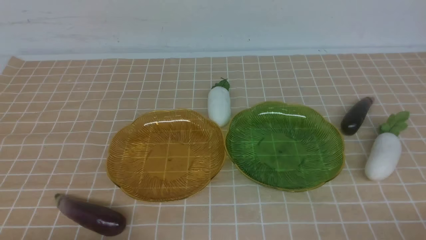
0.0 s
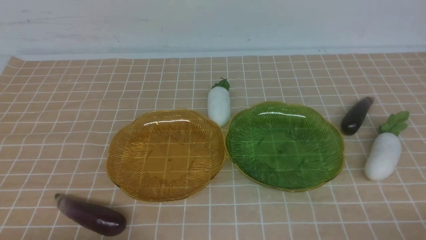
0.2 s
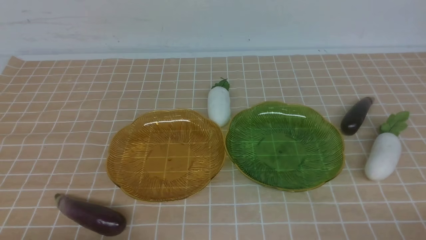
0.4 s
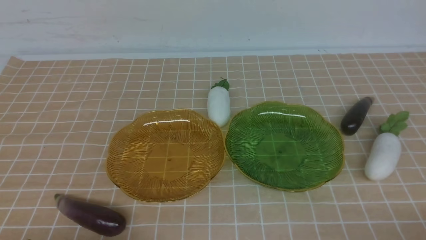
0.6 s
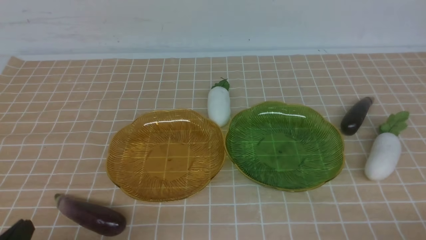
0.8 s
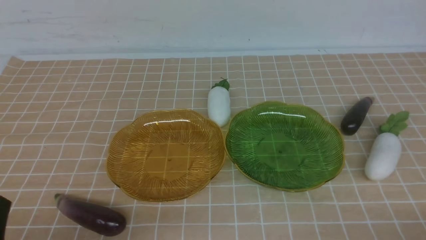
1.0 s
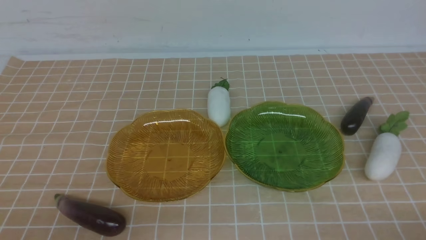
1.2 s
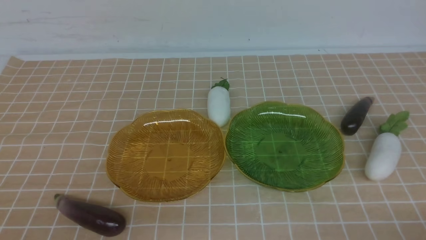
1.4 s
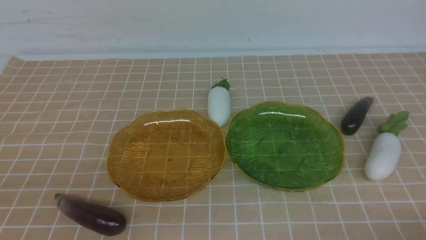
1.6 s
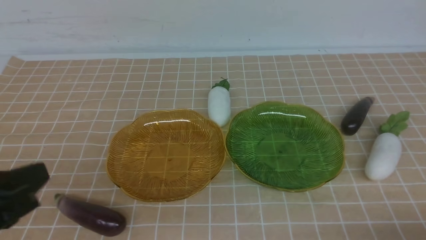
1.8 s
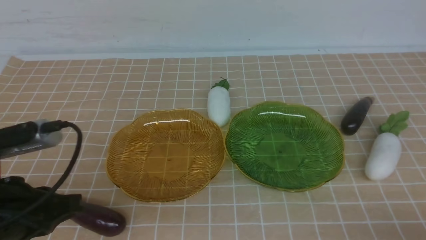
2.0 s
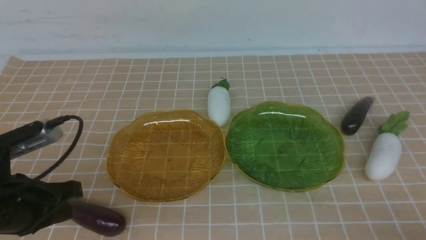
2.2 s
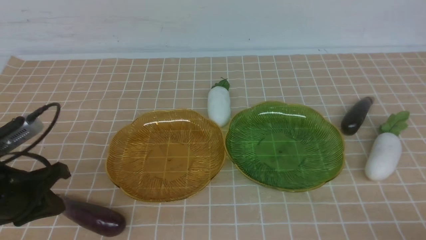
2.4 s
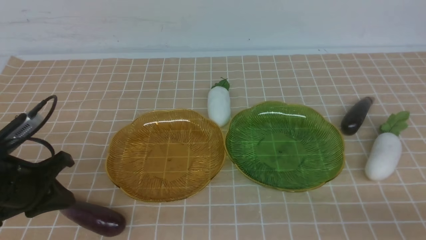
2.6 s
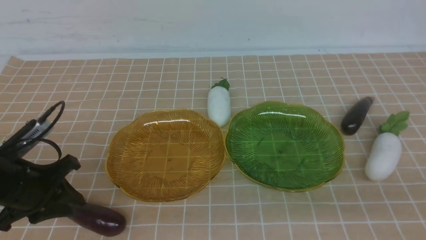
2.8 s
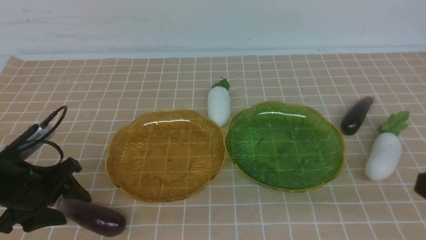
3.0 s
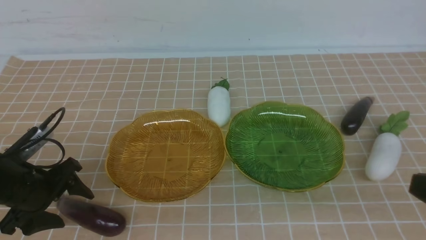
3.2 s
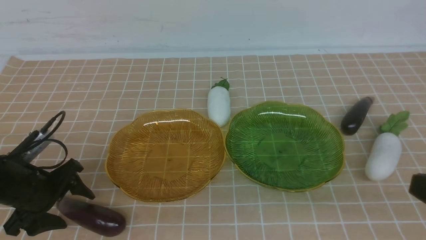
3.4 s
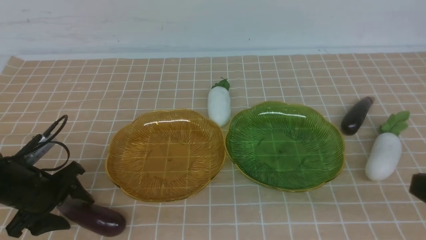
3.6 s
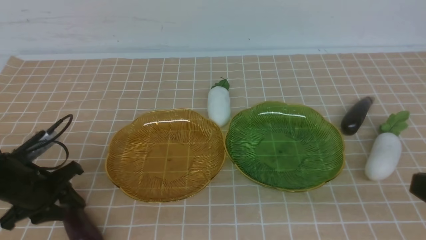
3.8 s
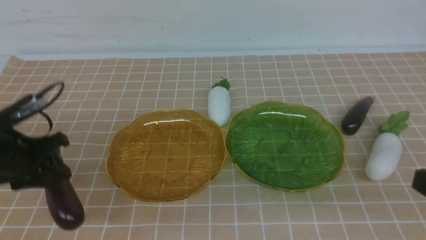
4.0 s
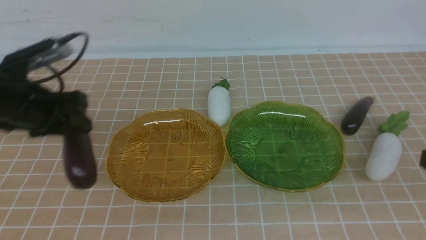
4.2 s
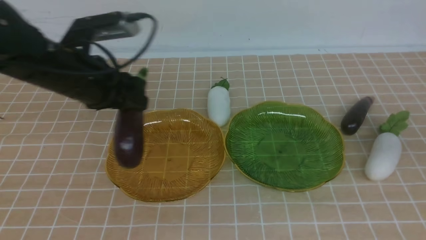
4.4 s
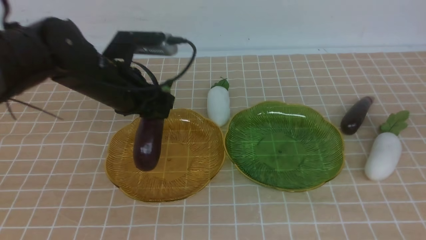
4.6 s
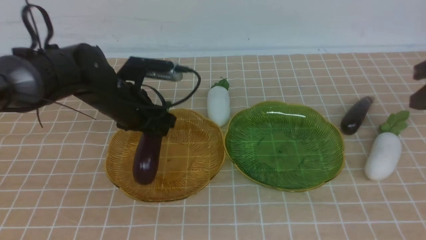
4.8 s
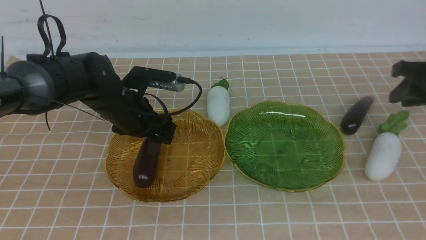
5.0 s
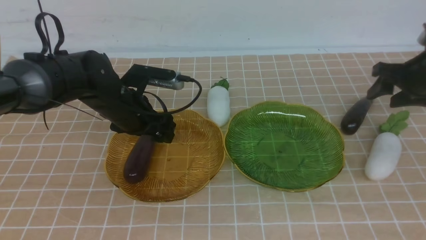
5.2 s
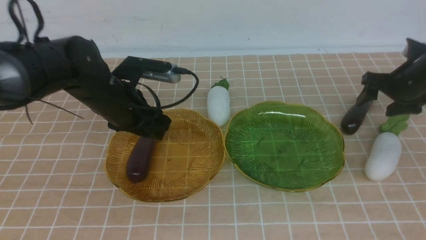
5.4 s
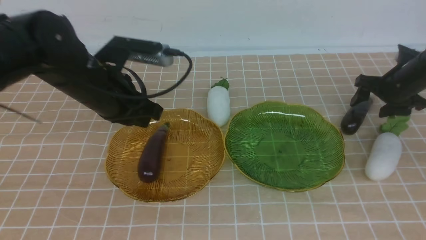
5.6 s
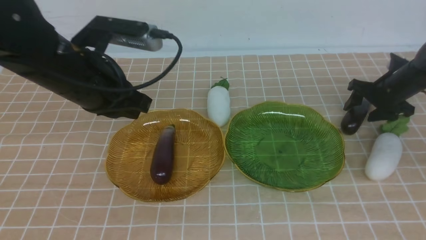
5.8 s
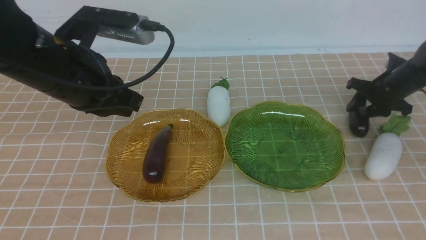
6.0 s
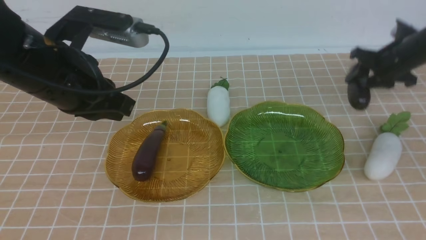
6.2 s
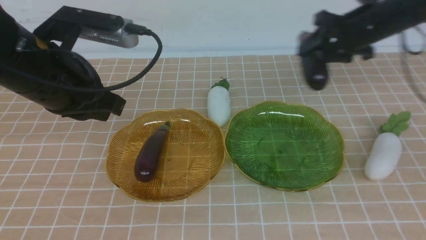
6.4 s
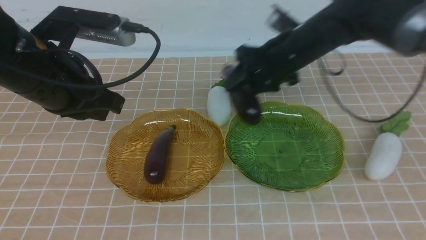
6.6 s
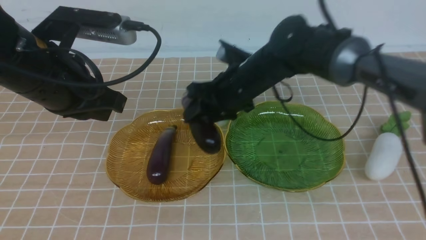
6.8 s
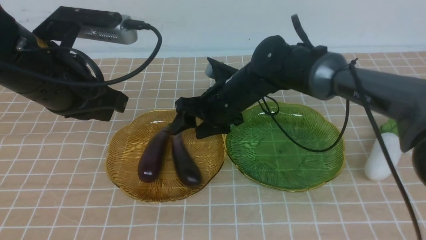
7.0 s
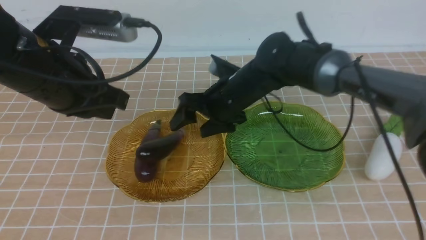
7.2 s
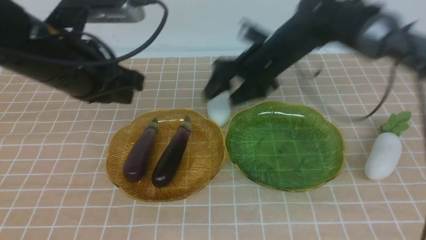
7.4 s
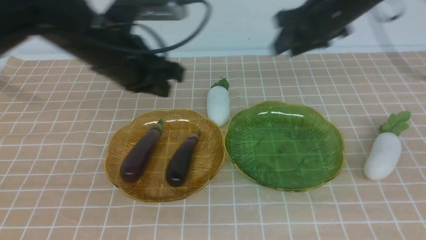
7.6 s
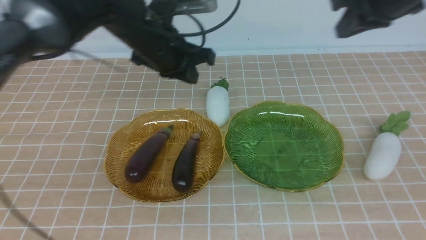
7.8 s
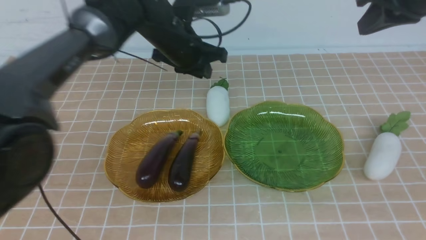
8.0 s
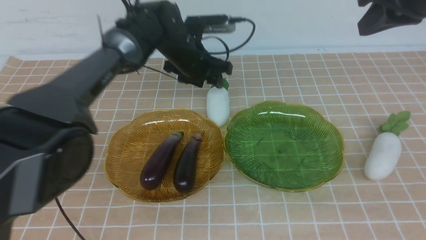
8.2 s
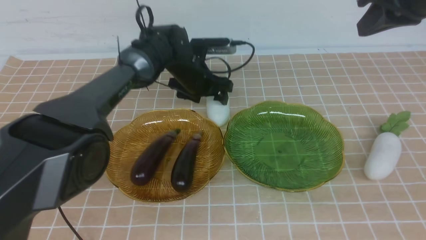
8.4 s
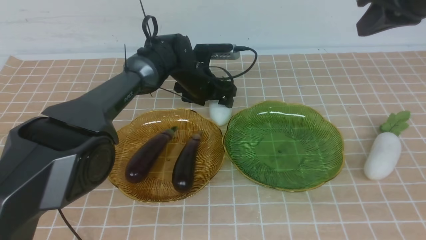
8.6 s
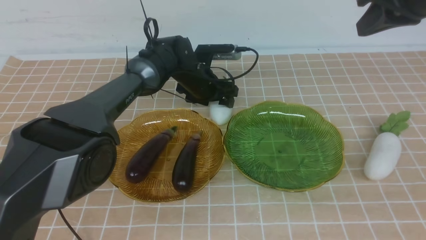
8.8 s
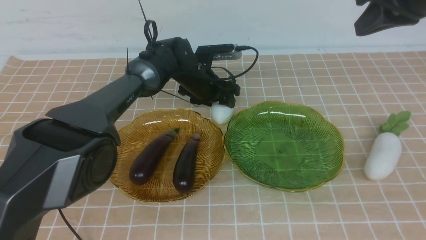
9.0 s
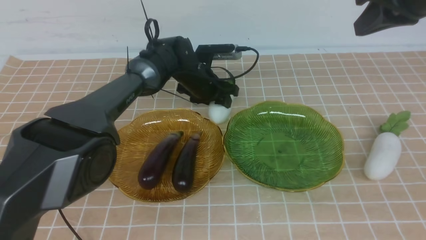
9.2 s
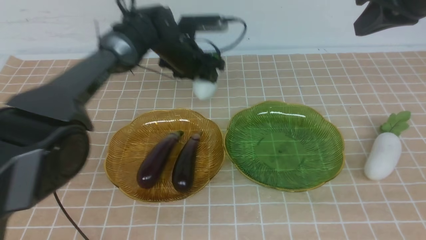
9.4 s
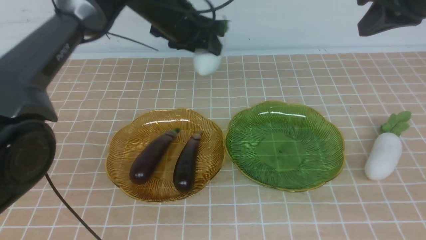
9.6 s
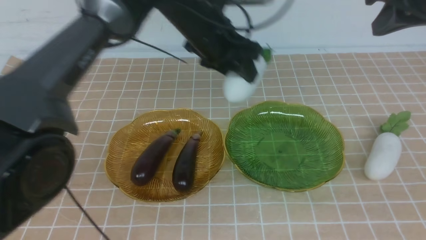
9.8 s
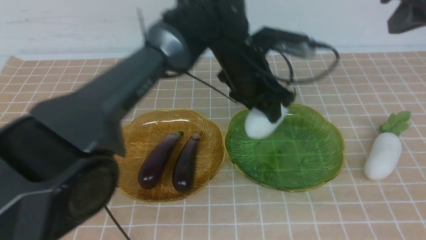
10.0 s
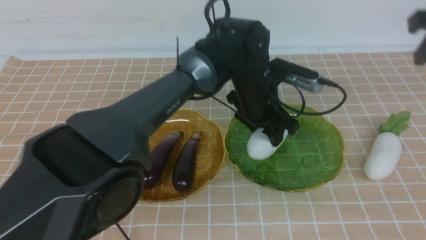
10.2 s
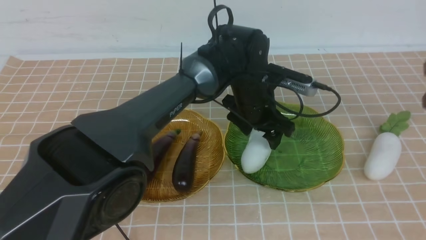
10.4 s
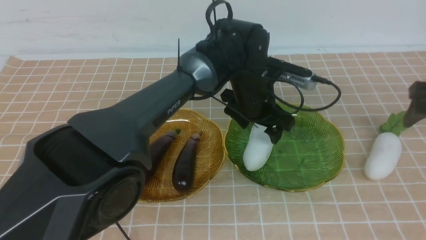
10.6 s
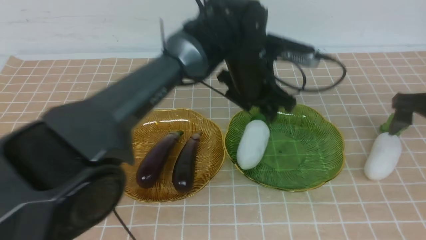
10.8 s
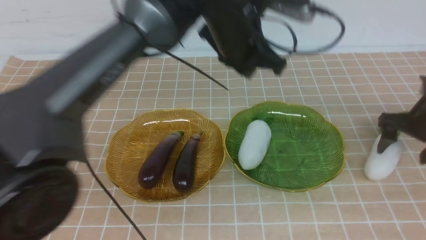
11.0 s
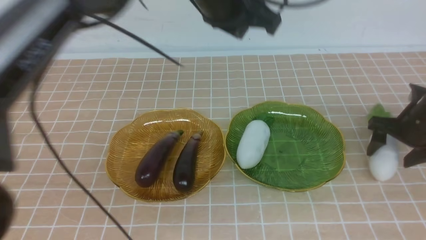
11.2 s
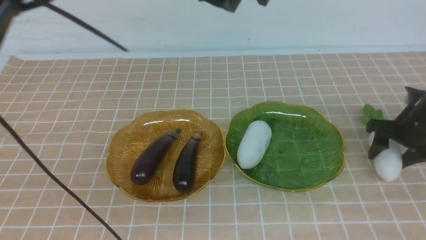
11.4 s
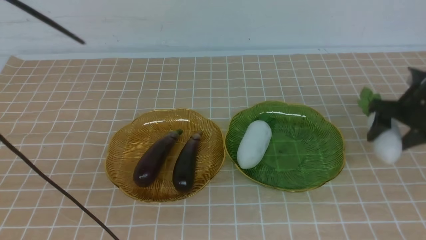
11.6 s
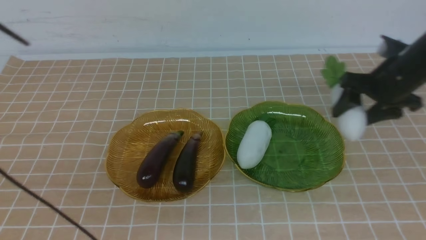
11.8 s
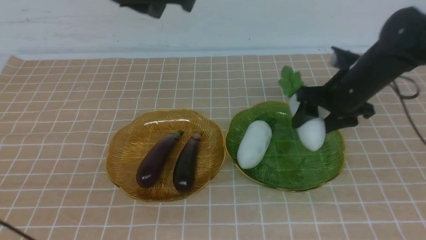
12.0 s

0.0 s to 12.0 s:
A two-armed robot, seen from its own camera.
Step, 0.0 to 5.0 s: use the left arm to grab an eggplant and put it into the left plate.
Step, 5.2 to 7.0 s: use the right arm to grab an eggplant and put it into the left plate.
Step, 7.2 to 10.4 s: use the left arm to grab a radish and put it into the right plate.
1.6 to 3.0 s: The left gripper travels forward and downward by roughly 20 cm, and opens its fingers.
3.0 to 4.4 s: The right gripper heads forward, covering some 20 cm; the left gripper goes roughly 20 cm to the right, forward and upward, and closes its fingers.
4.4 to 6.0 s: The left gripper moves upward and backward, approximately 15 cm, and closes its fingers. The right gripper moves forward and downward, roughly 25 cm, and opens its fingers.
6.0 to 7.6 s: The left gripper travels forward by some 5 cm, while the right gripper goes about 20 cm to the left, upward and backward, and opens, then closes once more.
7.6 to 9.0 s: The right gripper shifts roughly 15 cm to the right, upward and backward, and closes. The left gripper shifts approximately 25 cm forward, downward and to the right, and opens its fingers.
9.0 to 10.4 s: The right gripper moves downward and to the right, roughly 20 cm, and opens; the left gripper is displaced backward, to the right and upward by approximately 15 cm.
10.4 to 12.0 s: The right gripper moves to the left, approximately 15 cm. Meanwhile the left gripper shifts roughly 30 cm upward, to the left and backward, and closes up.

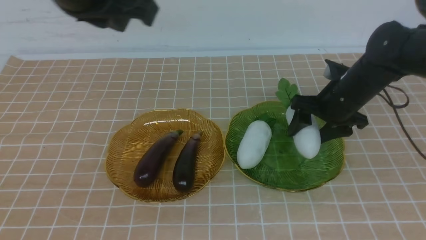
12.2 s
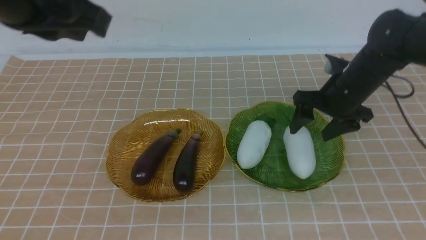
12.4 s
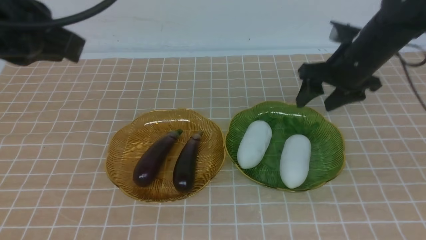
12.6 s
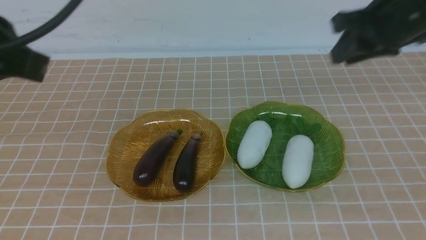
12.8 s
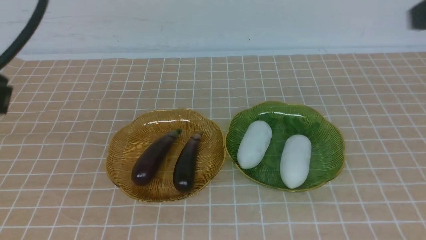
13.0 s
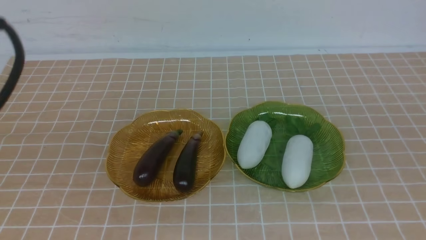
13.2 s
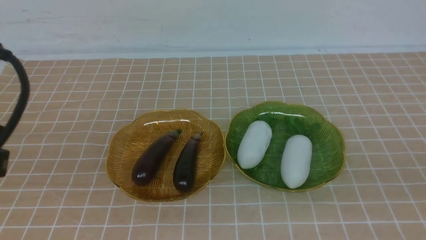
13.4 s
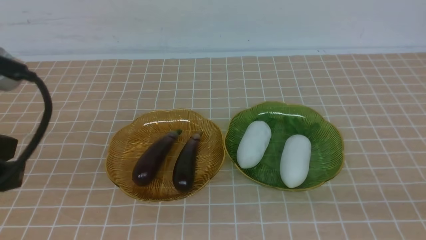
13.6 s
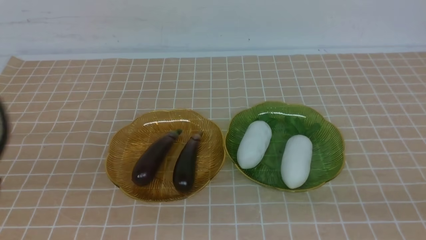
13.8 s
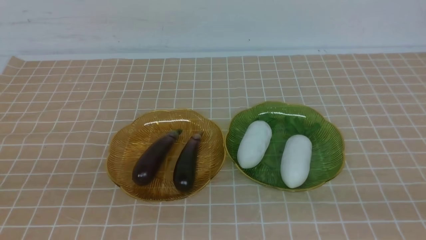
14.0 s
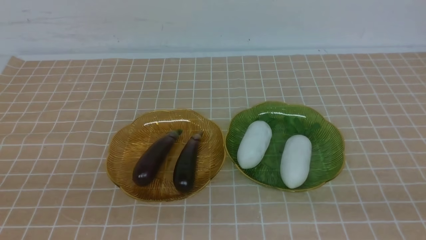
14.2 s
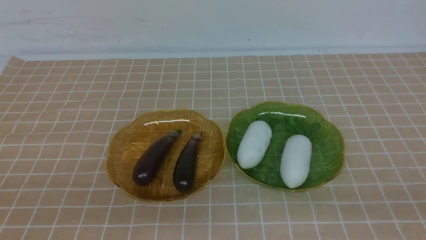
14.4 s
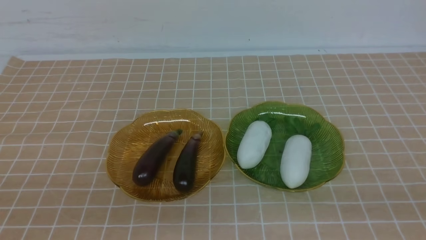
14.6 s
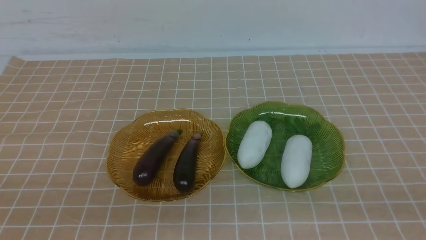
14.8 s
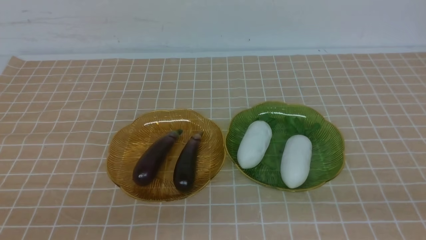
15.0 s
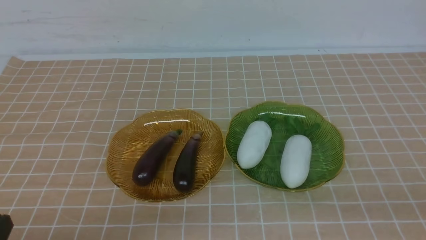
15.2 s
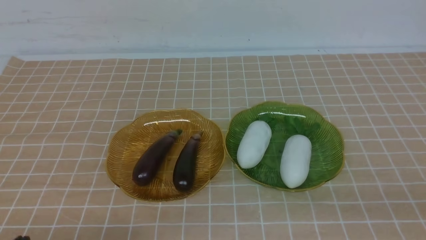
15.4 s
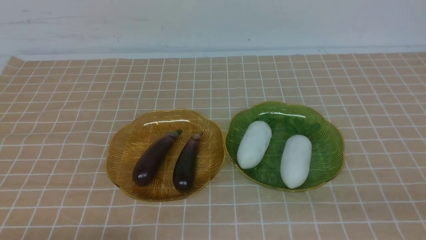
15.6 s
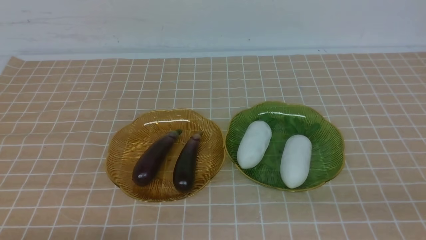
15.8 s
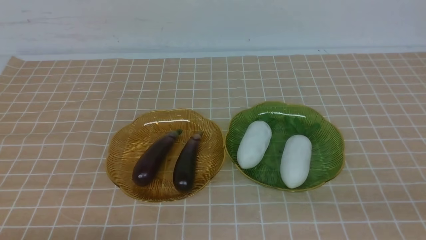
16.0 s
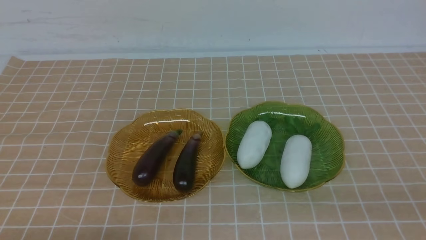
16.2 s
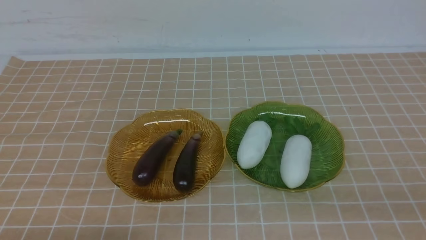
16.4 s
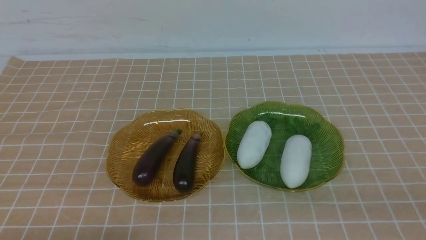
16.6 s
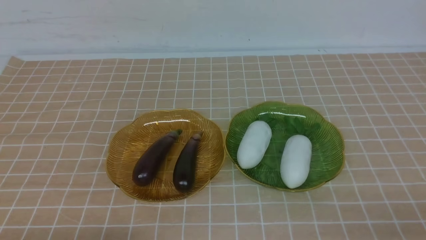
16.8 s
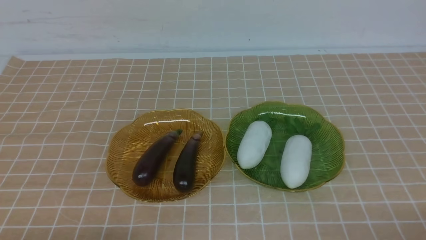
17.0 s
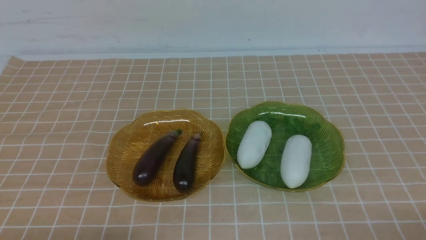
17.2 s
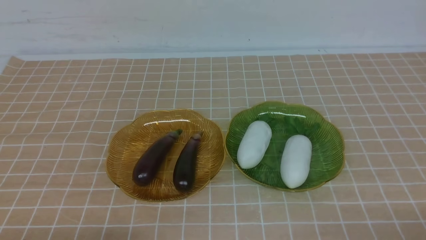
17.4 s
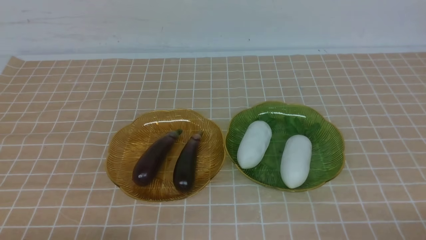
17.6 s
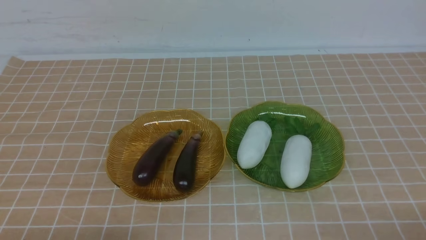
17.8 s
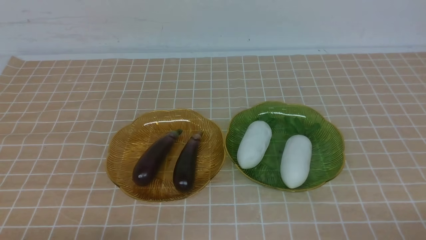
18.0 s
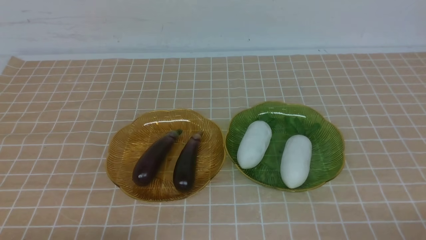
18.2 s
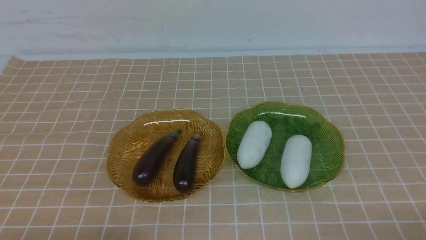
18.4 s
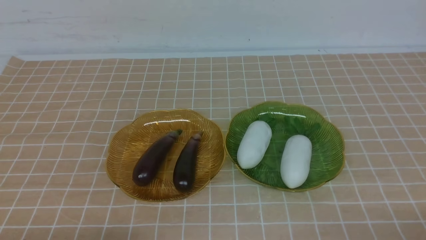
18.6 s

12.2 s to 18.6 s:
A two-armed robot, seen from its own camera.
12.2 to 13.8 s: The right gripper shifts roughly 35 cm backward, and closes. Meanwhile the left gripper goes some 20 cm backward, downward and to the left.
13.8 to 15.4 s: The left gripper travels downward by some 20 cm.
17.0 to 18.6 s: Both grippers stay about where they are.
